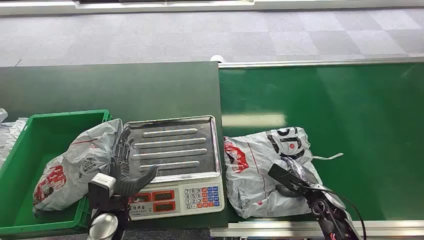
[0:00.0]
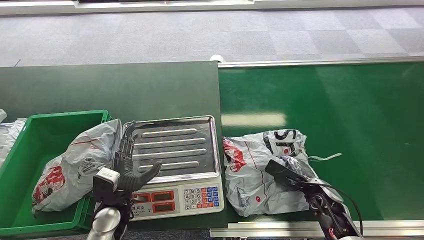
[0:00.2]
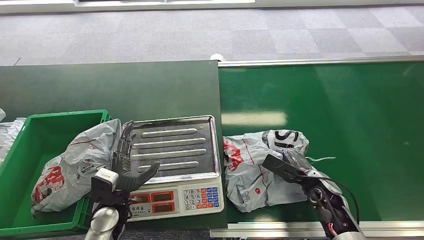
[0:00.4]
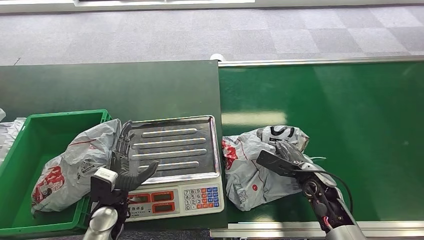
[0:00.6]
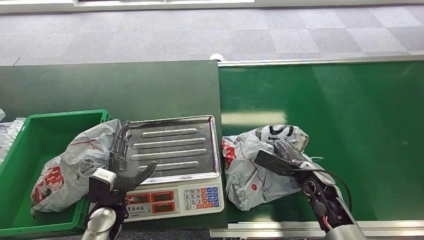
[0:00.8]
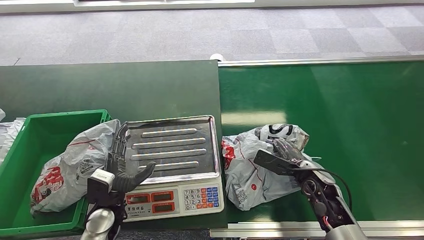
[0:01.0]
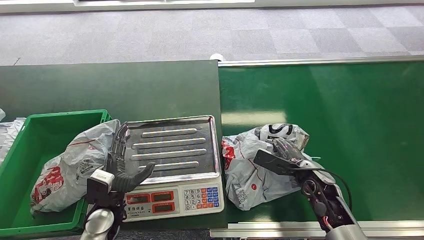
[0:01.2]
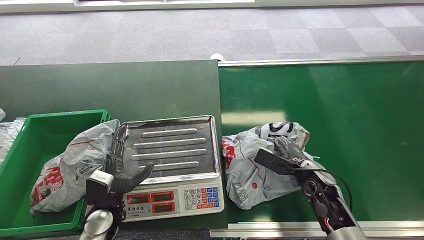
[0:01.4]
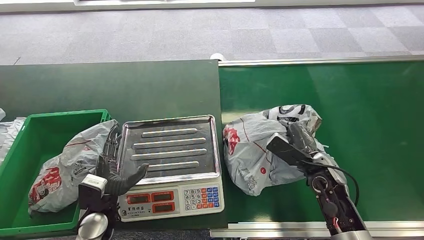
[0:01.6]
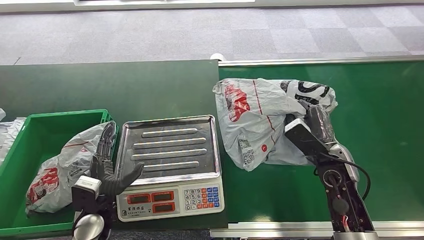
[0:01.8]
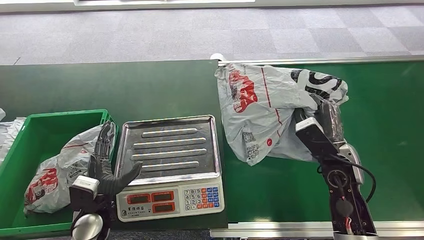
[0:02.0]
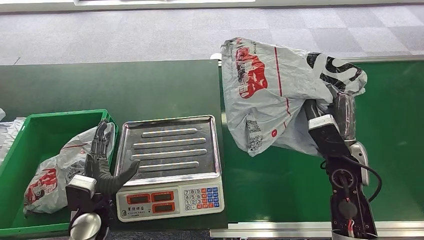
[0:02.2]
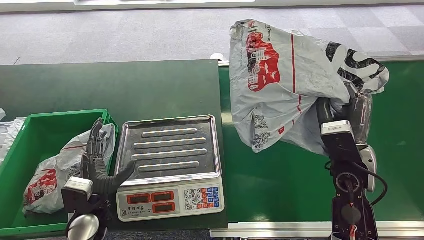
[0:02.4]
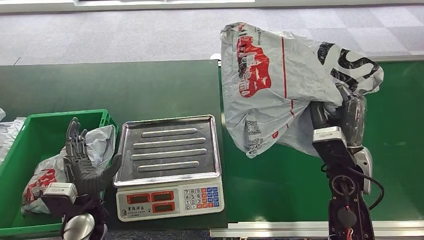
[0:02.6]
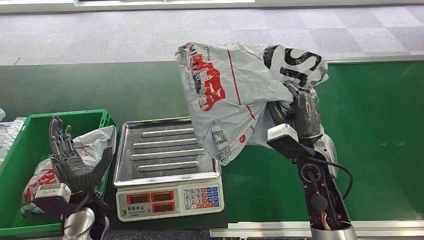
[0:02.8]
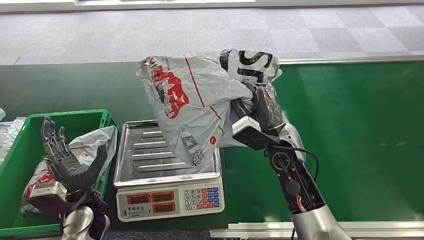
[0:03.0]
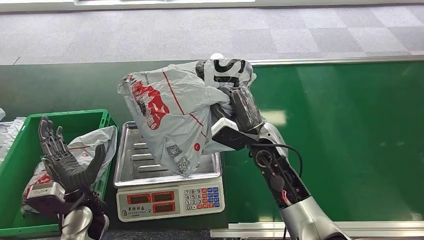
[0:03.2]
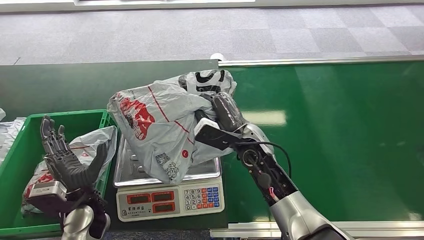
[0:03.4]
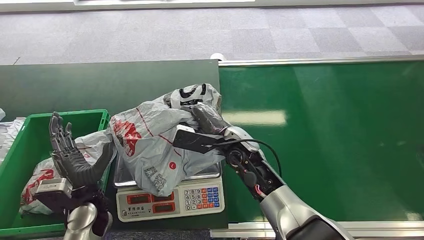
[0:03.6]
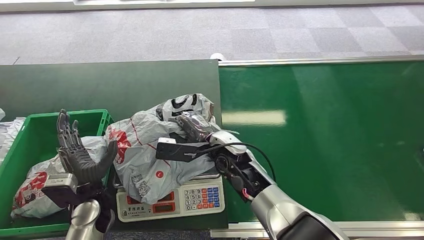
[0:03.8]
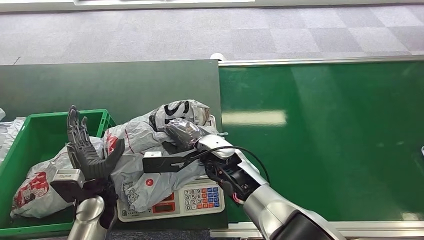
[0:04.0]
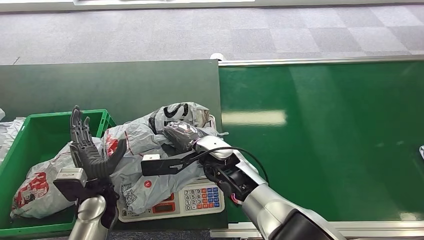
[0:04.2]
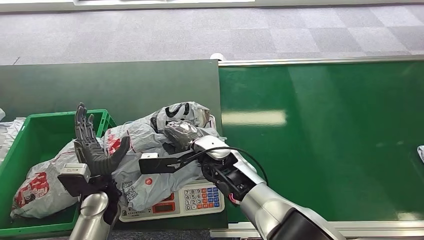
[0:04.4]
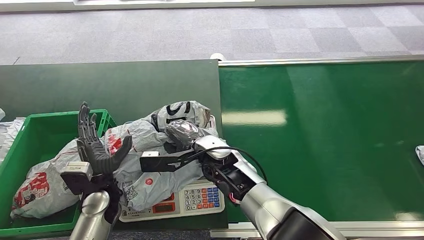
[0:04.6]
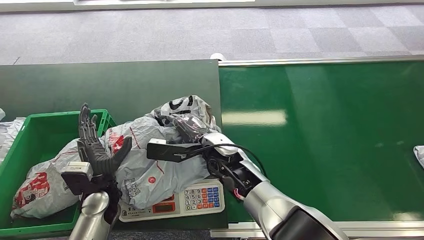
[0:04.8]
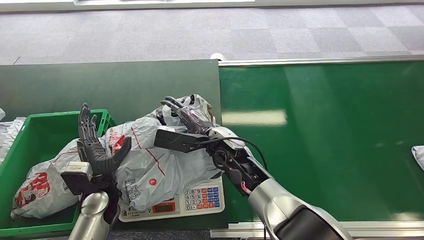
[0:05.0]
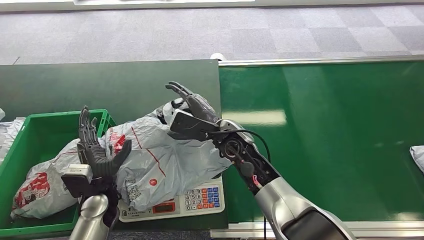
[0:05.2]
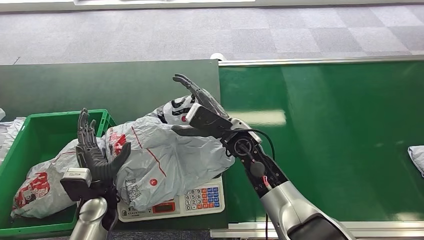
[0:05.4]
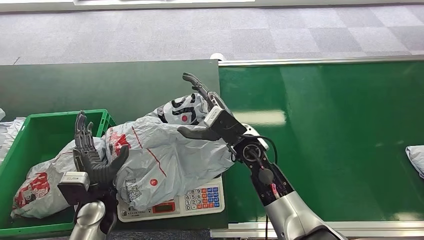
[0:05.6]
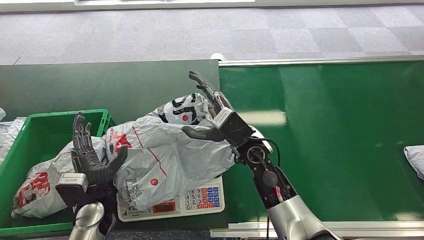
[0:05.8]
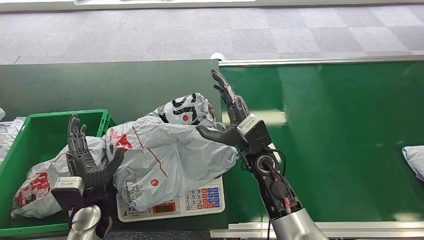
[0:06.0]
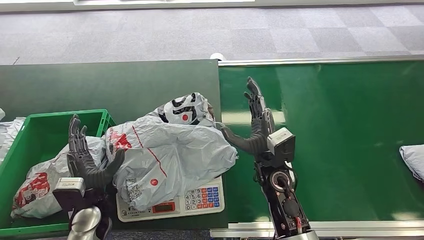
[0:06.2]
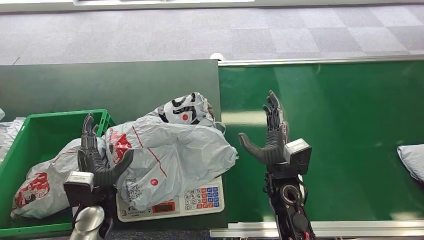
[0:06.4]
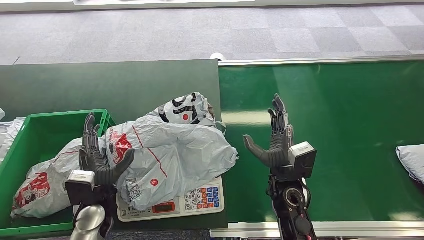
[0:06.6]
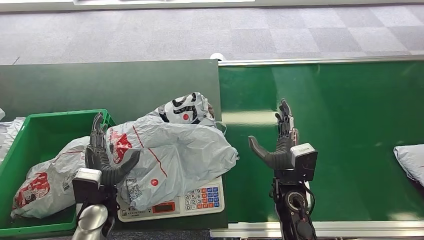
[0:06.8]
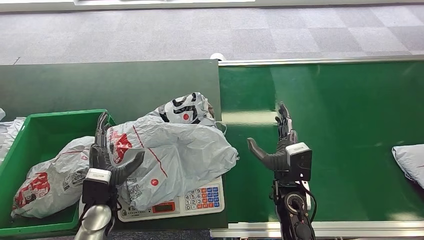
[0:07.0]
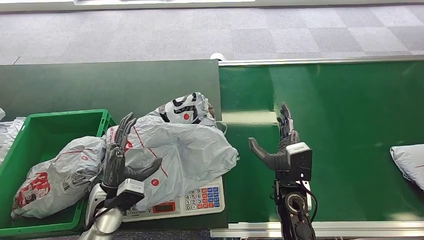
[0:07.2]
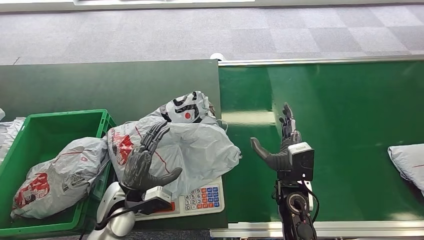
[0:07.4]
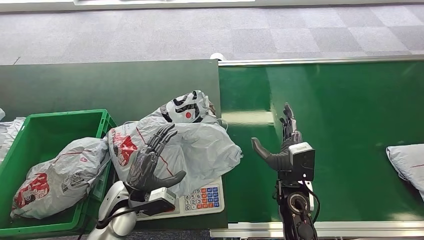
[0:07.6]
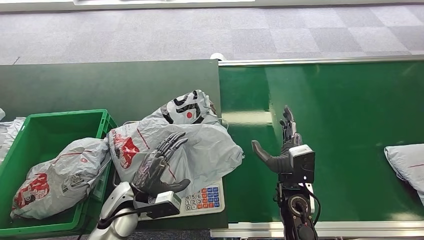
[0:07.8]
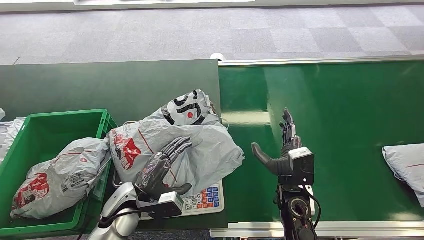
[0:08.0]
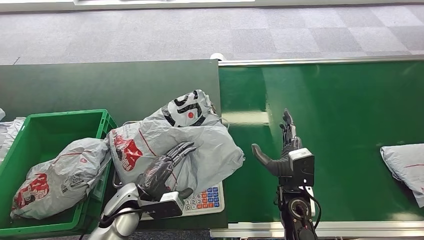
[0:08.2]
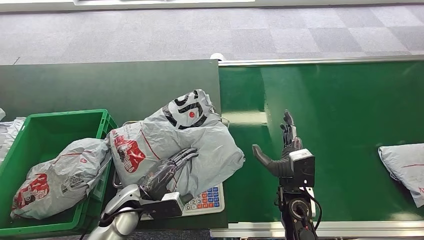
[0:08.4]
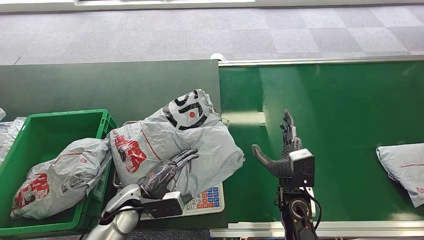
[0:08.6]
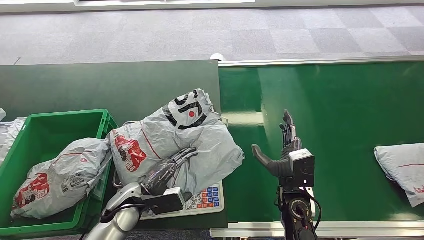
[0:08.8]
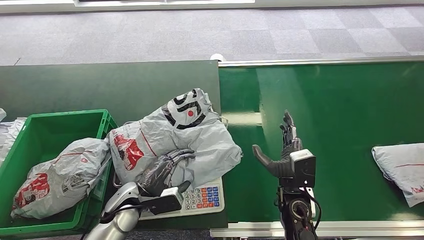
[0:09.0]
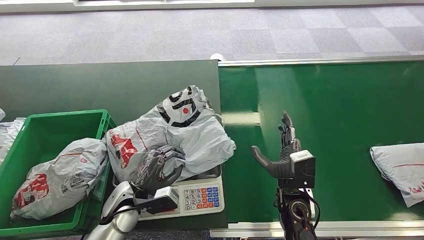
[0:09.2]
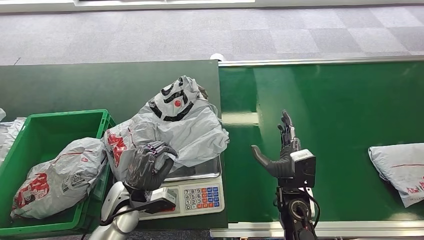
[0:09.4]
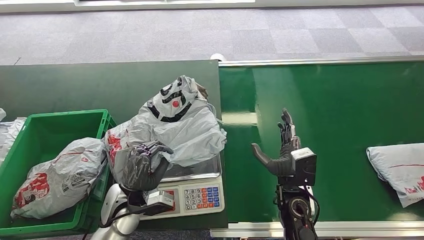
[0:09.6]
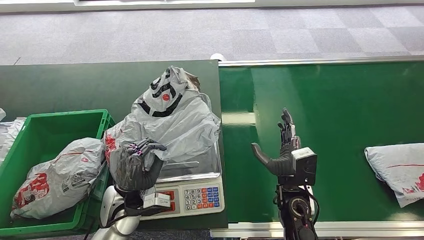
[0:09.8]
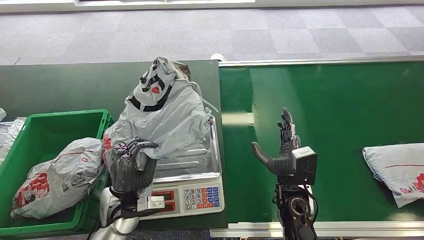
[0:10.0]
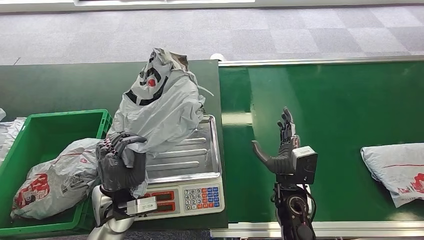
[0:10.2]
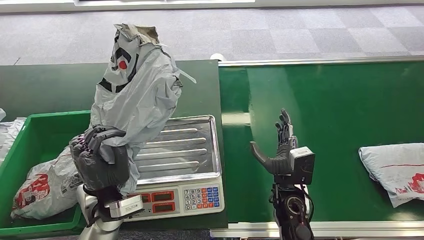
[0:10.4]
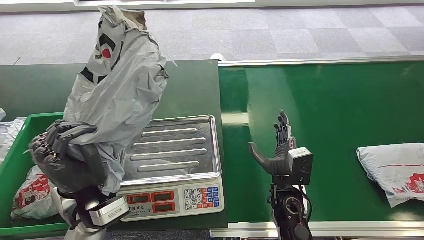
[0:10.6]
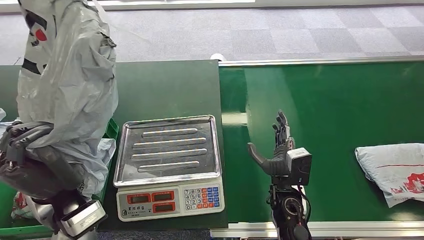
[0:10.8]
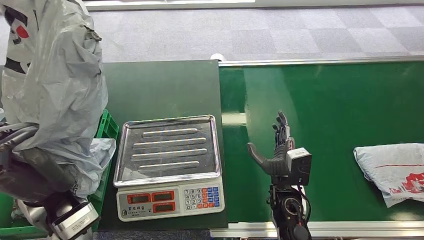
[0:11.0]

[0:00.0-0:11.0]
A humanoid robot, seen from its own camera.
Step, 0:00.0 to 0:01.8: Pick up the package from the conveyor belt.
Step, 0:03.2 to 0:05.0: Place the package onto the inbound machine.
Step, 0:09.6 to 0:10.6: Pick up the package from the inbound machine.
0:04.8 to 0:06.2: The right hand moves to the right, about 10 cm.
0:06.2 to 0:07.8: The hands both shift to the right by some 5 cm.

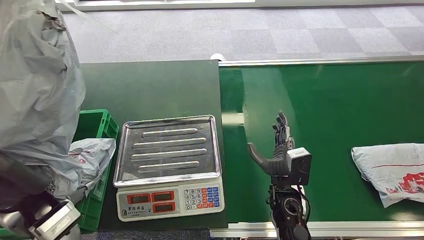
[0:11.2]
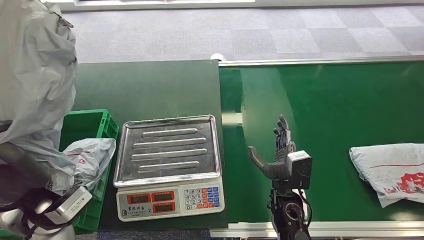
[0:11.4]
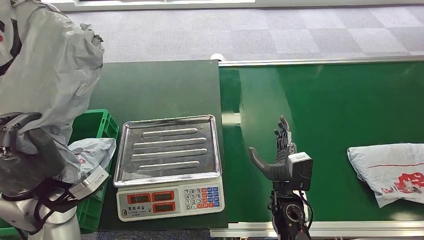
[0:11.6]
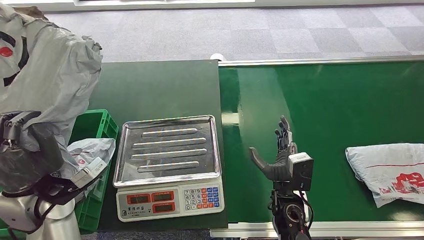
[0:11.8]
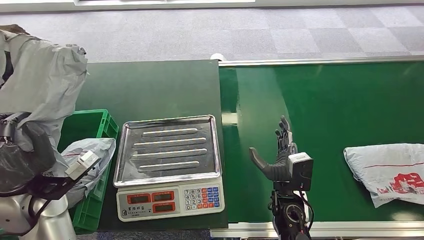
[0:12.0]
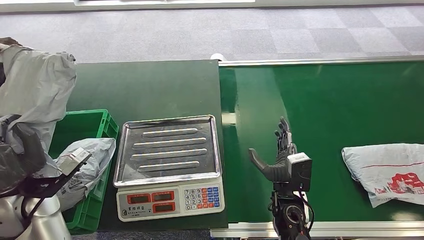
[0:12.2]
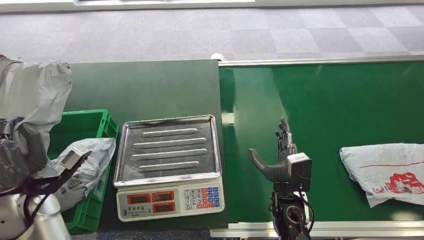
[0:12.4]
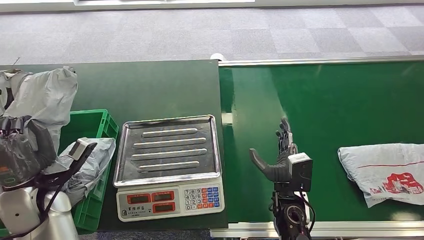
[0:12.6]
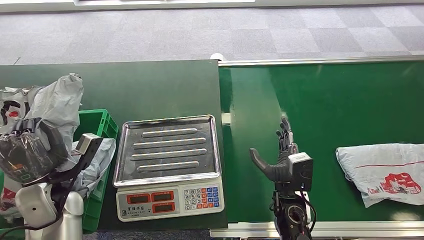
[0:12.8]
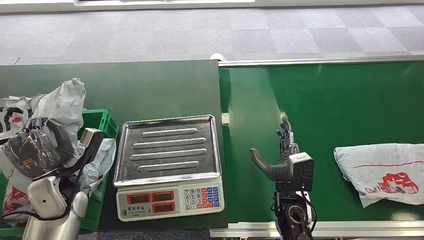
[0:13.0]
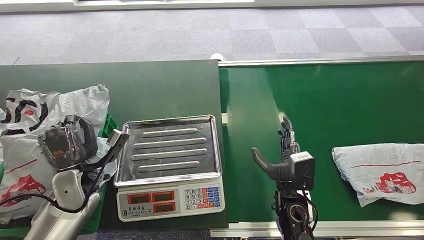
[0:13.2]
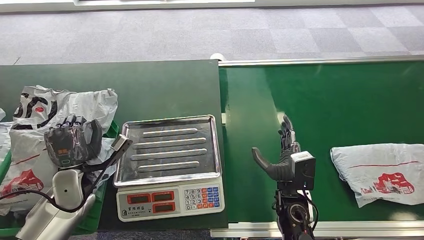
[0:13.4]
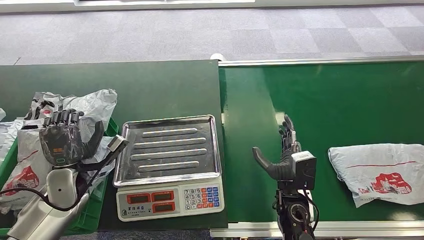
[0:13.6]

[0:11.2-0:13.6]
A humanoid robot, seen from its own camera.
Step, 0:11.8 to 0:13.6: Place the package into the parcel locker.
0:11.2 to 0:12.4: The left hand heads to the left and downward, covering some 10 cm.
0:12.4 to 0:13.6: The left hand goes approximately 10 cm forward and downward.
